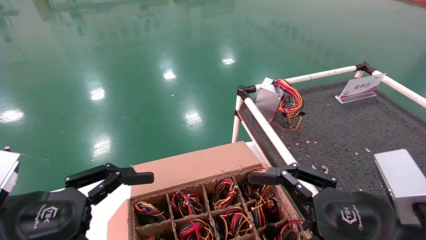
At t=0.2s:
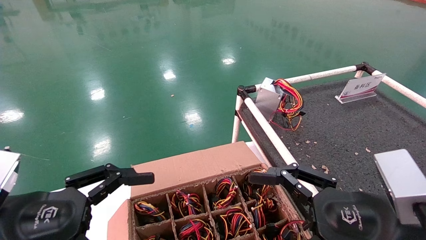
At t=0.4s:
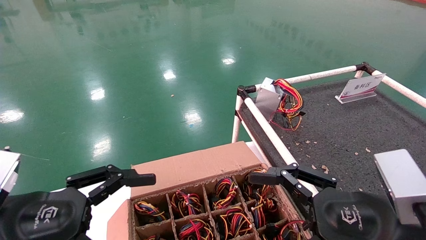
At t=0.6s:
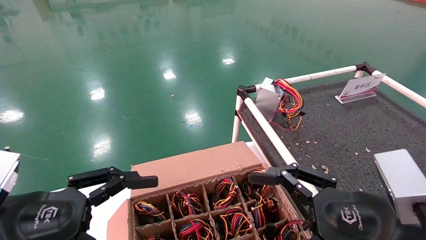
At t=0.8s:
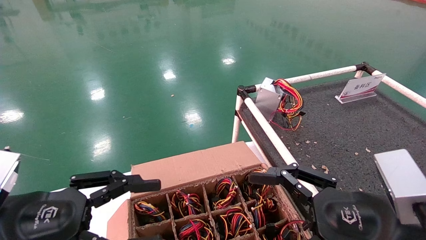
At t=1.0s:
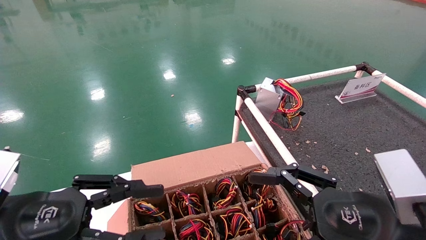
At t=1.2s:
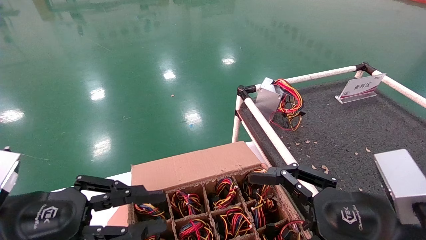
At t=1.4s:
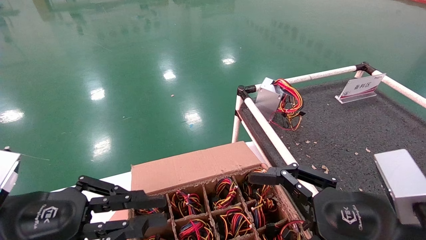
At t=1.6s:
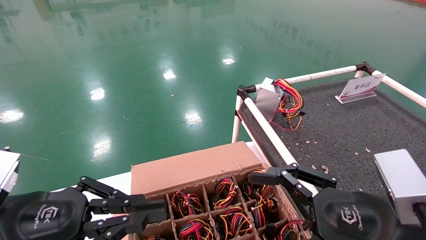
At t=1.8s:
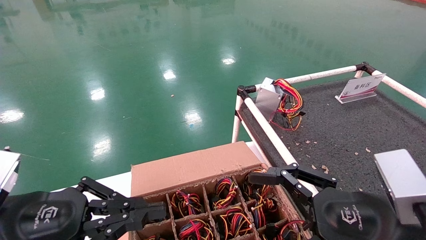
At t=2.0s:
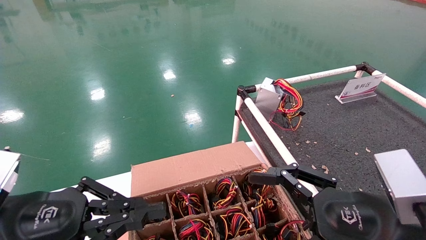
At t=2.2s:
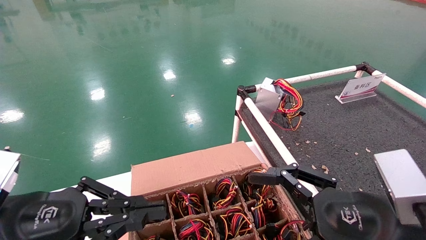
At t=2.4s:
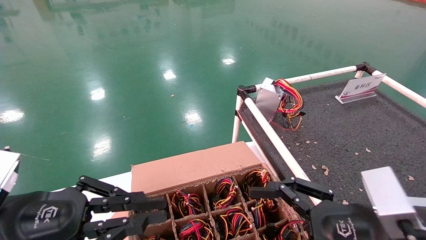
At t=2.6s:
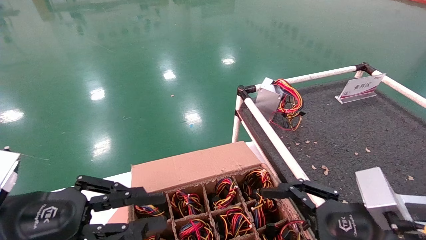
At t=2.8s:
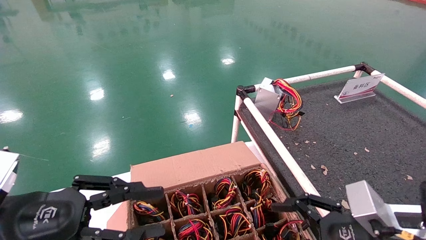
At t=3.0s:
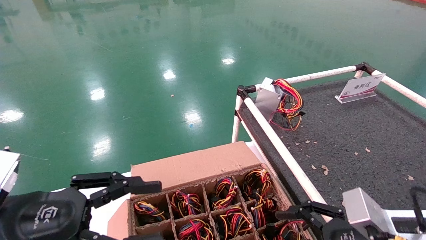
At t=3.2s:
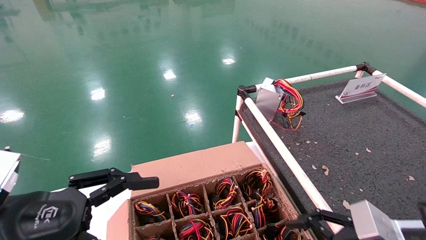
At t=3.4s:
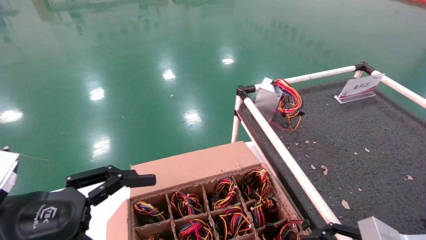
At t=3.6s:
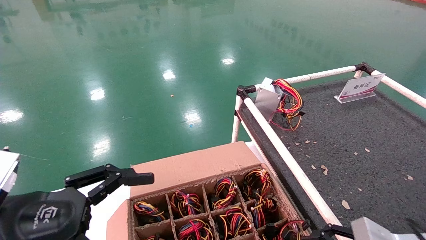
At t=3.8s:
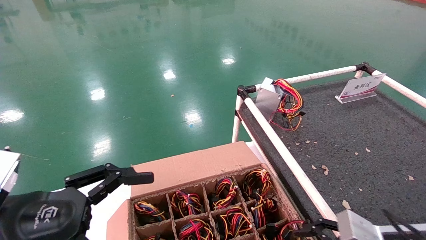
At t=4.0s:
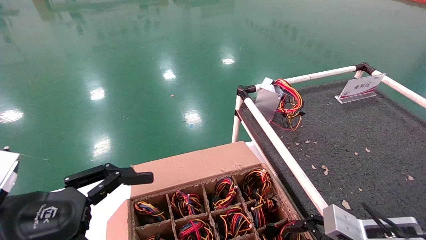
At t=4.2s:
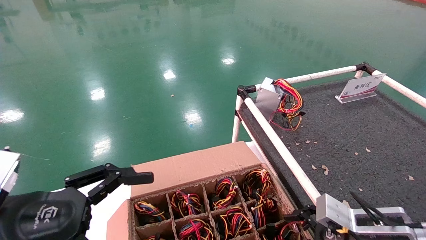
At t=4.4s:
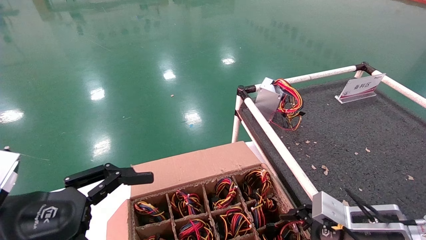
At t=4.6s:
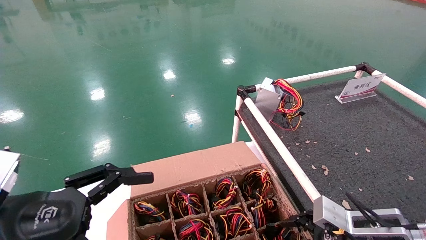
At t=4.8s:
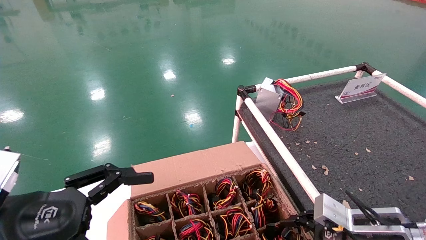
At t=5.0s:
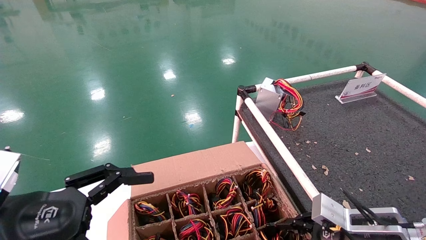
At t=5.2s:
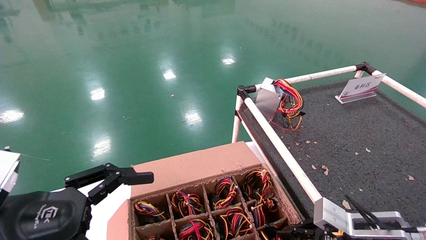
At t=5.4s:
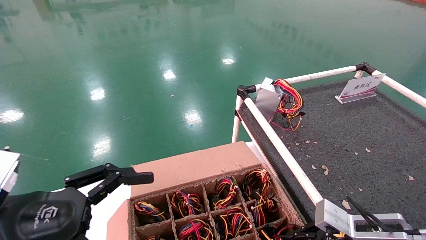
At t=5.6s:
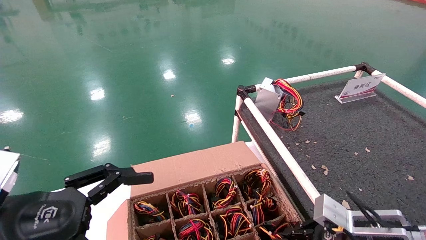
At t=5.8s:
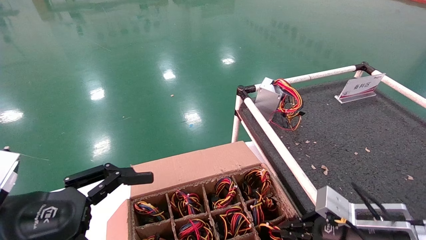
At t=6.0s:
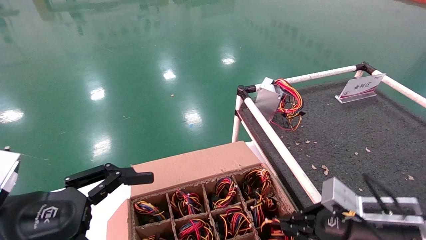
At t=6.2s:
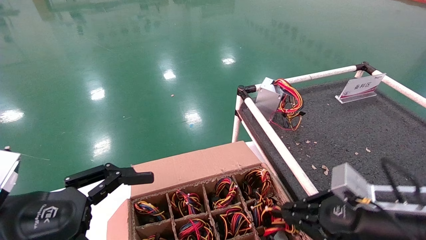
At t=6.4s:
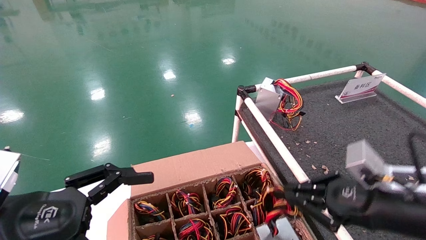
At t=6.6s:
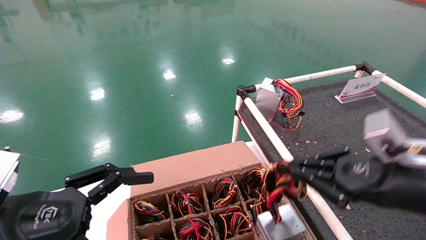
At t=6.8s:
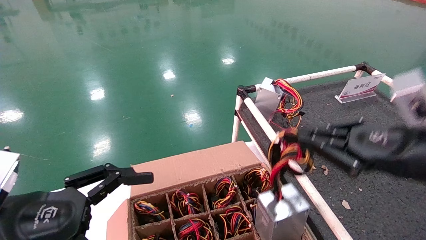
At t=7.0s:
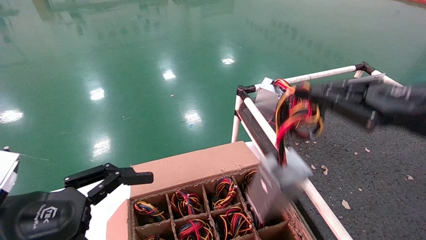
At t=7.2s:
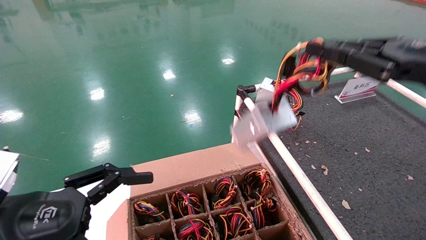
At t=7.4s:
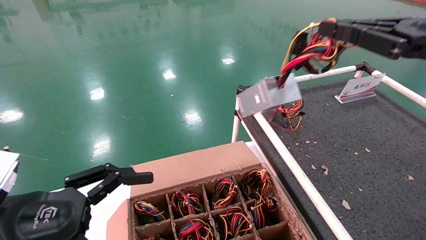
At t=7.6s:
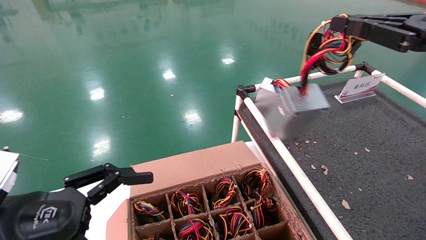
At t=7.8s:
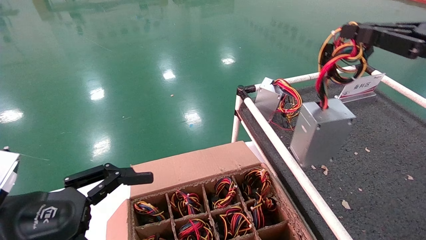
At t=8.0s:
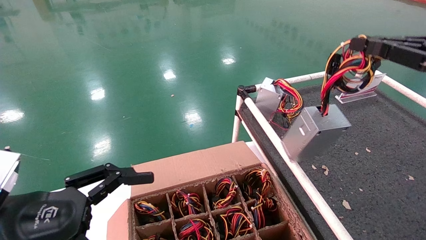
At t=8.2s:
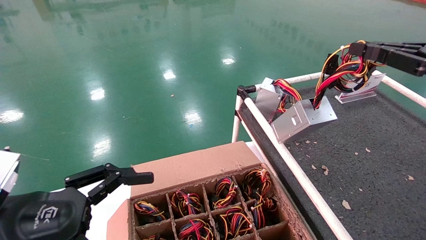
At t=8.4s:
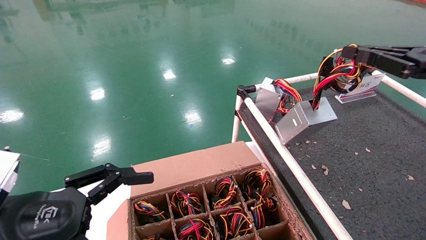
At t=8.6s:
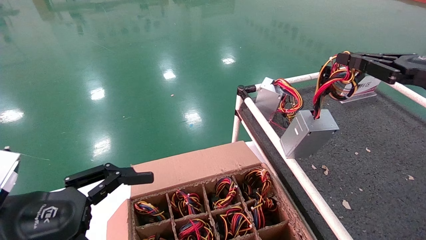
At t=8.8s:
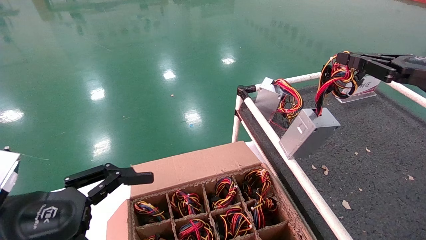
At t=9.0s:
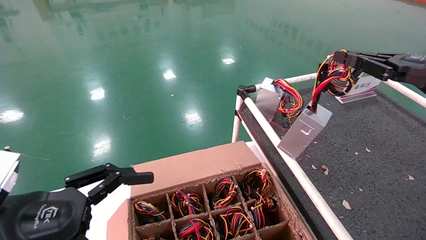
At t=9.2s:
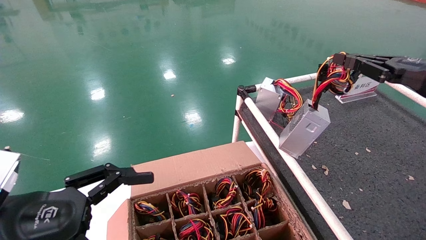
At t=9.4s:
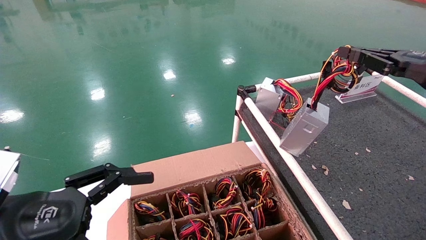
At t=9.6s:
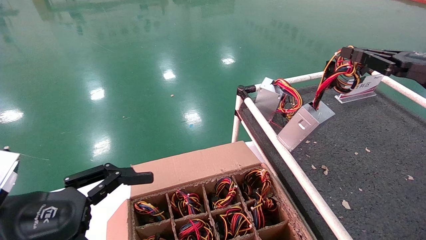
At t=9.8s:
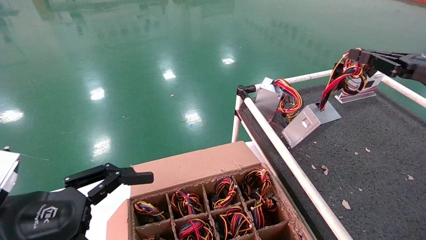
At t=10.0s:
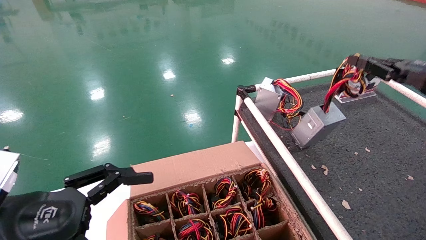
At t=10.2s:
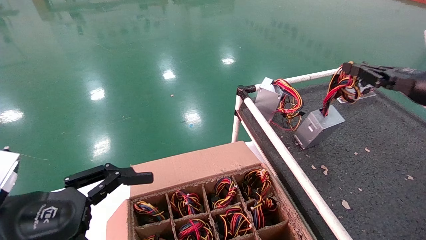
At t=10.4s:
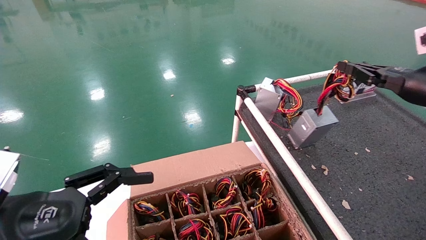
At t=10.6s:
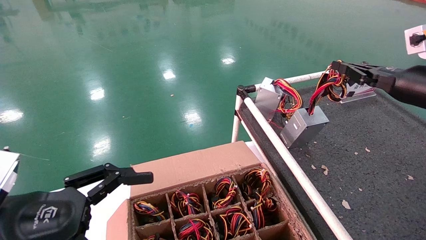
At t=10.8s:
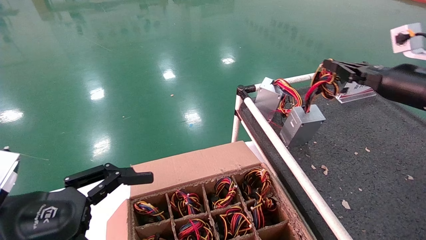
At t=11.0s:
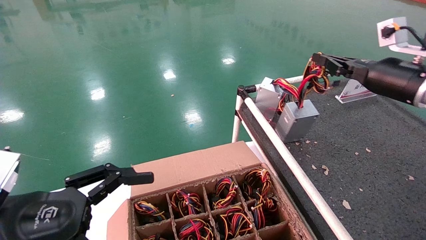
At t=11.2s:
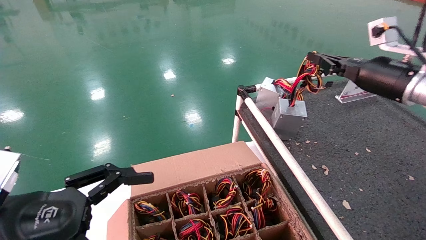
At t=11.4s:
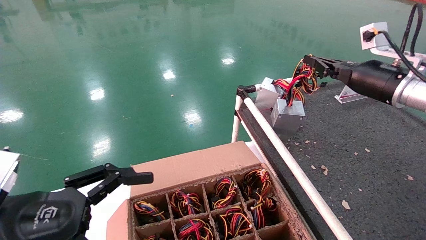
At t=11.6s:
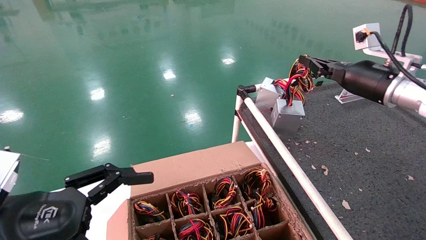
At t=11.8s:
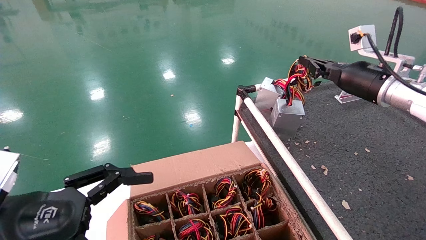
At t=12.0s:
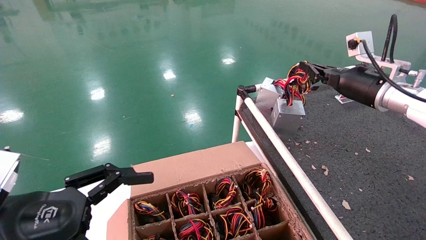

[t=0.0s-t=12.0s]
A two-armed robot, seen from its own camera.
Step, t=0.6s to t=5.2s: Grab and lift the power supply from the large box.
t=0.0s to t=1.6s: The left gripper closes.
t=1.6s to t=3.0s: The right gripper travels downward by some 5 cm.
t=3.0s to t=4.4s: The left gripper opens up. Meanwhile the right gripper moves forward, about 5 cm.
t=4.4s to t=6.0s: The right gripper closes up.
t=6.0s to t=7.6s: The right gripper shifts approximately 25 cm upward.
t=7.6s to t=9.0s: The right gripper is displaced forward by about 5 cm.
t=9.0s to t=10.4s: The right gripper heads forward, covering about 5 cm.
t=10.4s to t=12.0s: The right gripper moves forward and to the left, some 10 cm.

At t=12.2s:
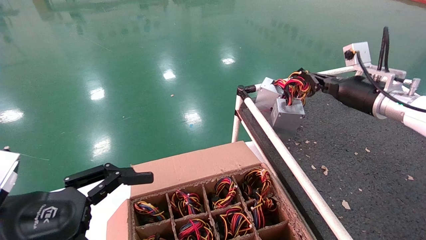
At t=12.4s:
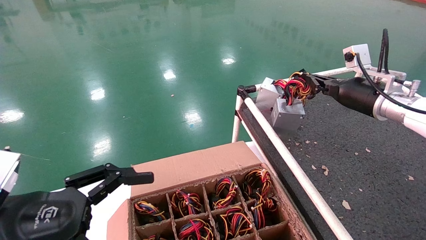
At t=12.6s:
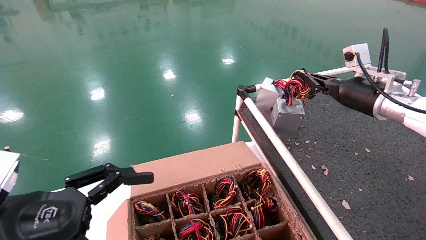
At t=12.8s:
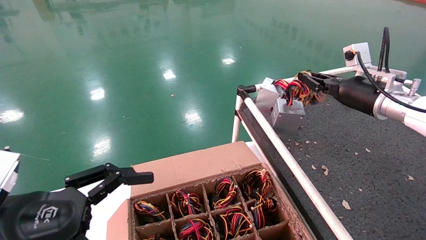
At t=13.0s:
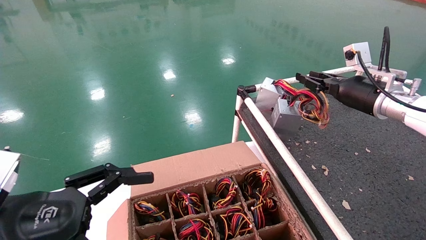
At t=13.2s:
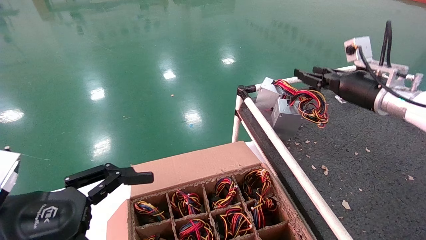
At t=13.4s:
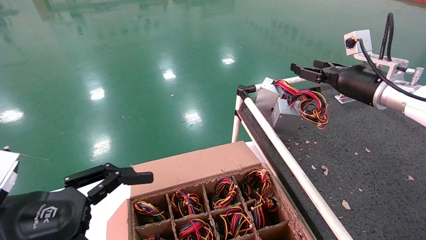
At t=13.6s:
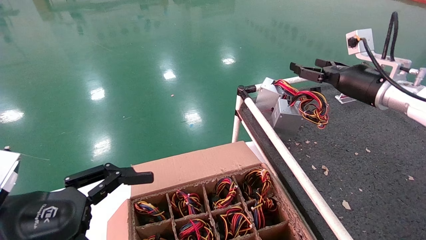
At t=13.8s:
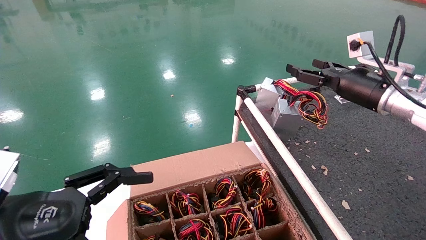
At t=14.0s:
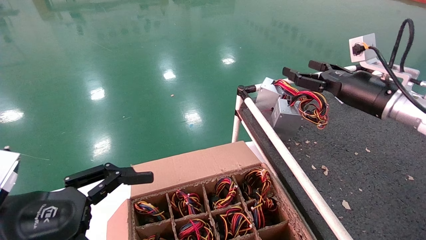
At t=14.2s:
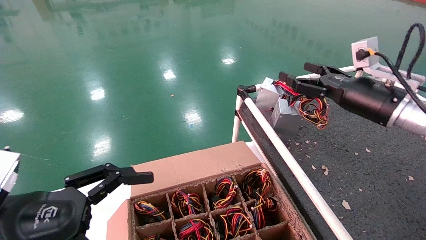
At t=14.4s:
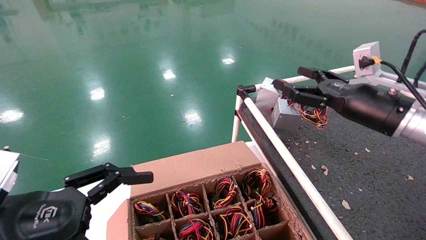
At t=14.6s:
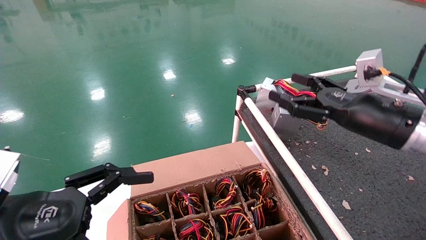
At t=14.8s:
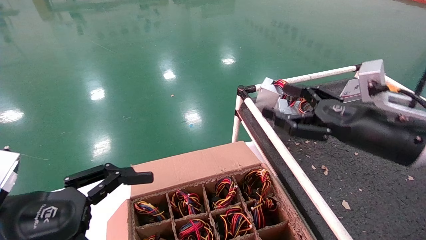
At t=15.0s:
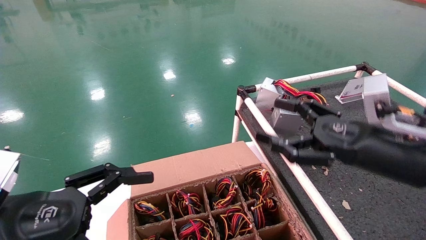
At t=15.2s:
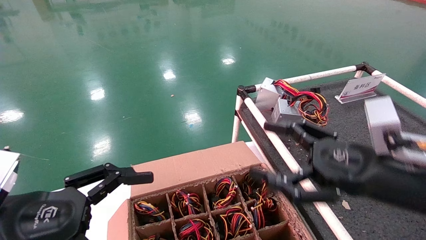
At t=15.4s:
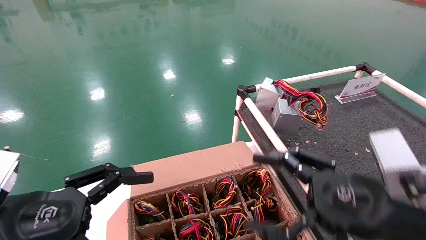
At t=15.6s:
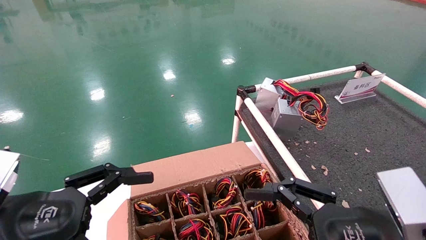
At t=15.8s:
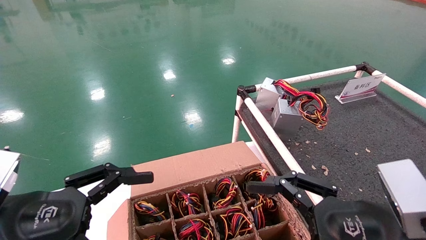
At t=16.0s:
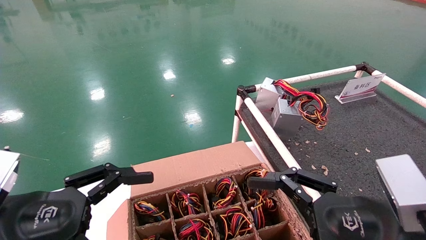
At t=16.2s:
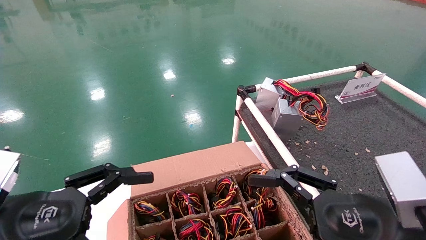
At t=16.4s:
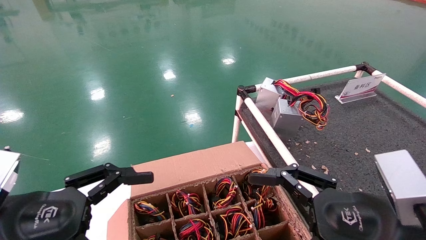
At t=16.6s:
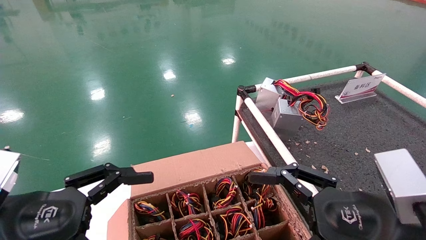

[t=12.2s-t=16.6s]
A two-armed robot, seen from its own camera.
t=12.2s to t=13.6s: The right gripper opens its fingers.
t=13.6s to t=15.2s: The right gripper is displaced backward and downward by roughly 20 cm.
t=15.2s to t=16.6s: The right gripper ends up approximately 5 cm from where it was.
